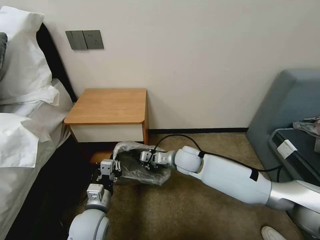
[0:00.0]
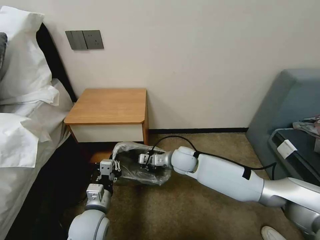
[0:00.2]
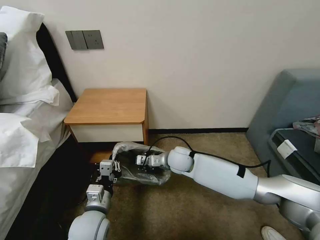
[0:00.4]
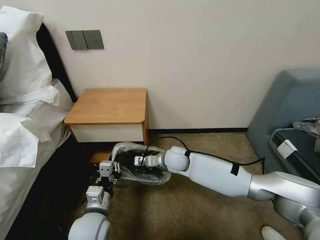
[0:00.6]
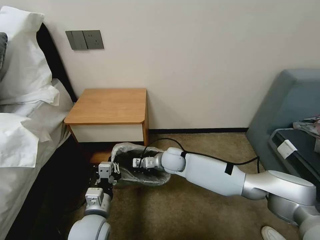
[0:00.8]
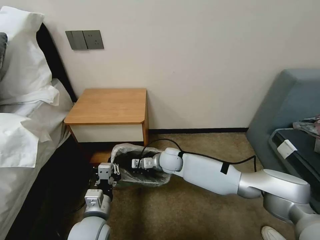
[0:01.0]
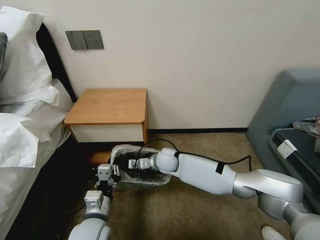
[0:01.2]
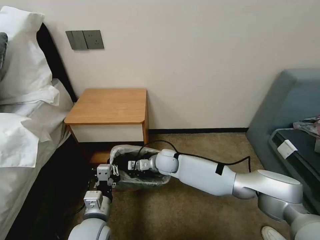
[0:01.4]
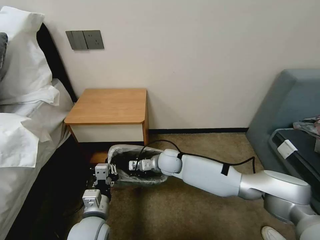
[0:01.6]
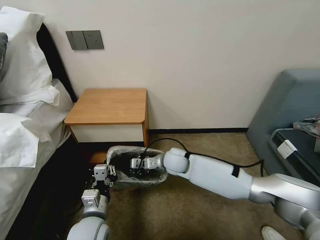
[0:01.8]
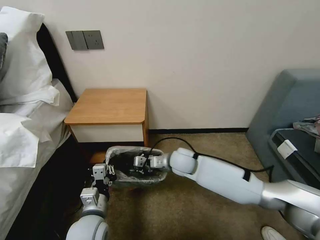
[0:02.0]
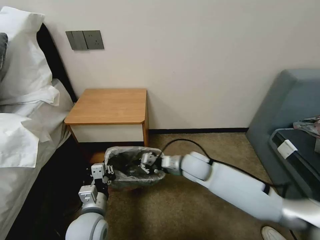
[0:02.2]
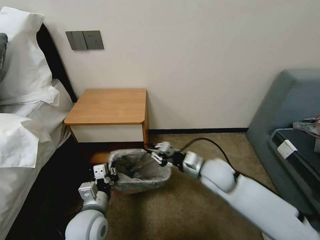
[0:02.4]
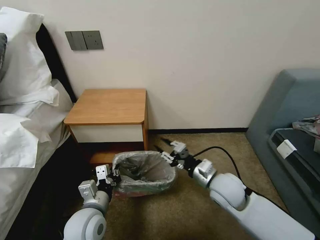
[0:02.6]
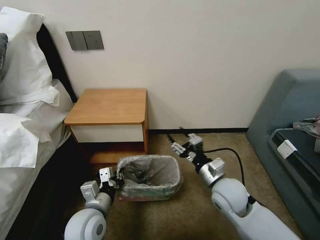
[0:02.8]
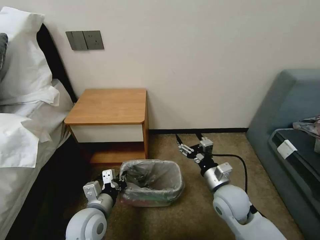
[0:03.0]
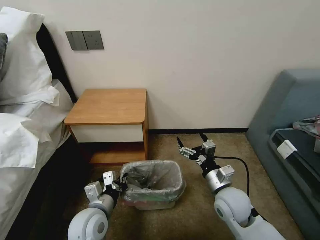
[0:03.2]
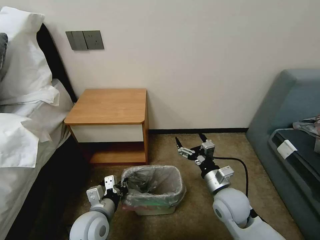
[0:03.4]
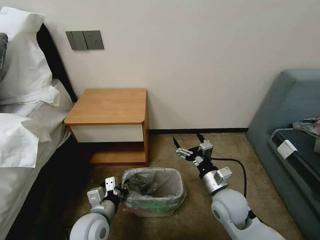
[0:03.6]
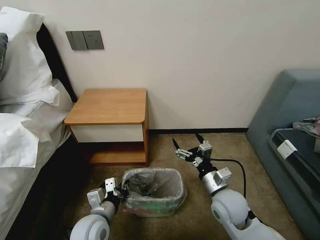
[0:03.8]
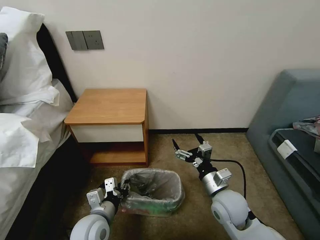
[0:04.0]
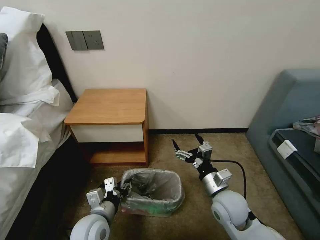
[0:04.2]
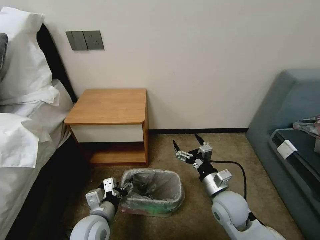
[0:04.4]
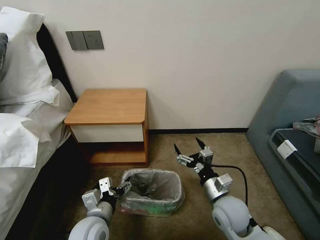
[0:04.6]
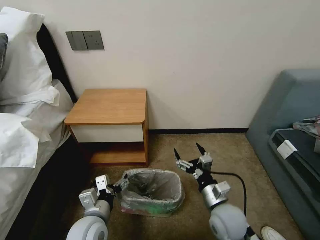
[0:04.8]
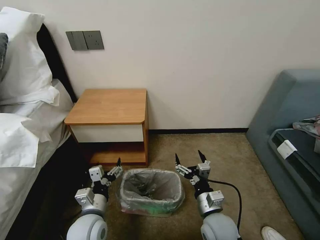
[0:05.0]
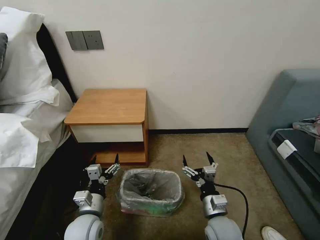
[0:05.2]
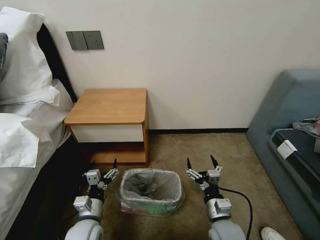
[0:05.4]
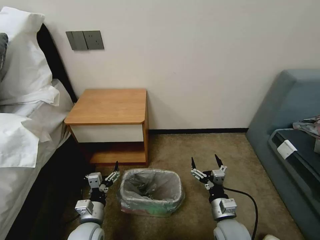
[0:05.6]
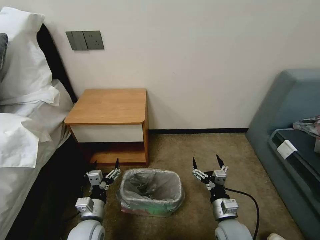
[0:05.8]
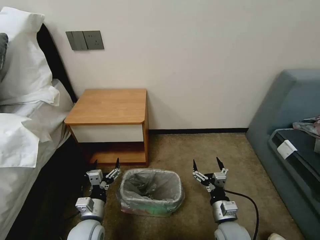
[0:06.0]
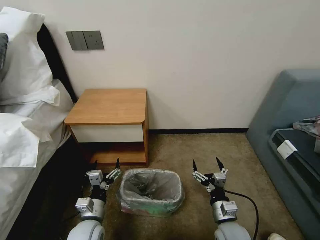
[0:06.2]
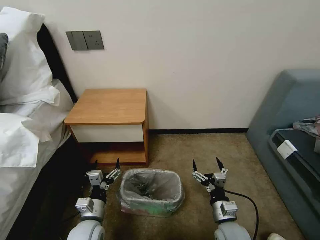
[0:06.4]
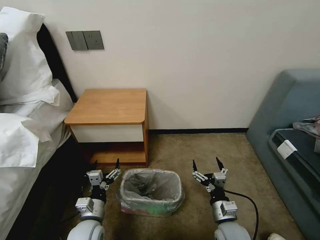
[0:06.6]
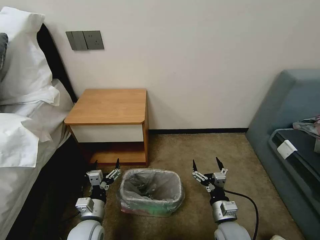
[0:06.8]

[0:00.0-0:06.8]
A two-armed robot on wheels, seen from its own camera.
Task of the whole recording: Pick up the garbage bag from the table and place it over the trash can.
0:00.0 to 0:01.4: The right gripper travels to the left and downward by about 10 cm.
0:01.4 to 0:02.8: The right gripper heads to the right and backward, covering approximately 25 cm, and opens.
0:02.8 to 0:04.0: The right gripper opens up.
0:04.0 to 0:05.4: The left gripper ends up approximately 5 cm from where it was, and opens; the right gripper is displaced downward and backward by some 10 cm.
0:05.4 to 0:06.8: There are only small adjustments of the grippers.

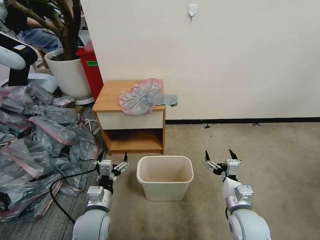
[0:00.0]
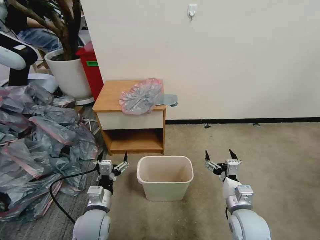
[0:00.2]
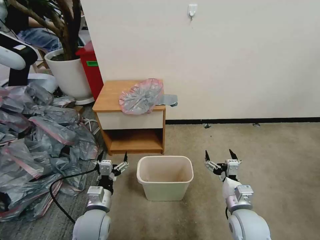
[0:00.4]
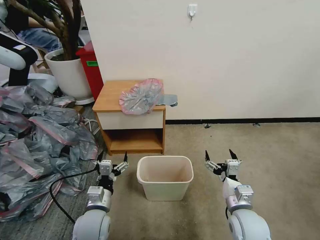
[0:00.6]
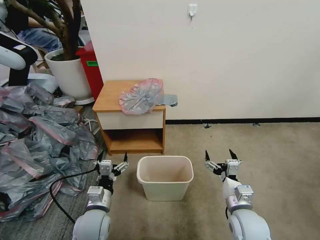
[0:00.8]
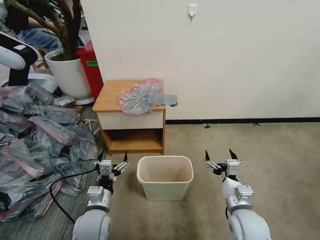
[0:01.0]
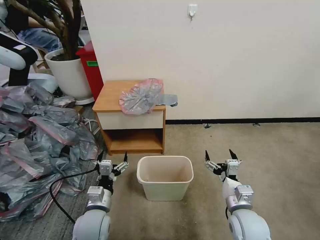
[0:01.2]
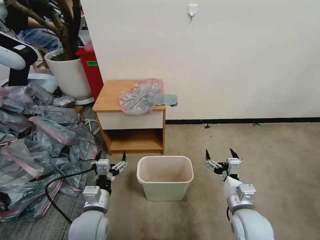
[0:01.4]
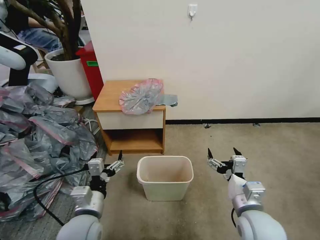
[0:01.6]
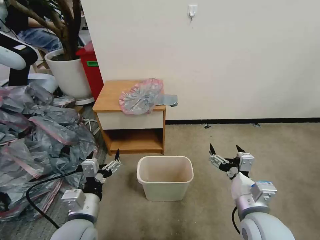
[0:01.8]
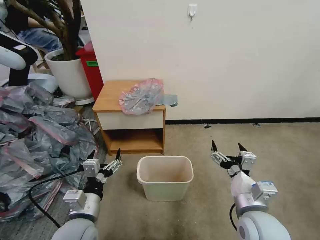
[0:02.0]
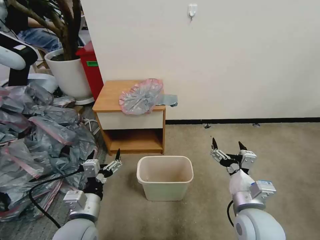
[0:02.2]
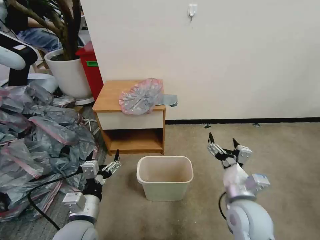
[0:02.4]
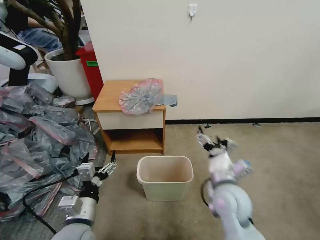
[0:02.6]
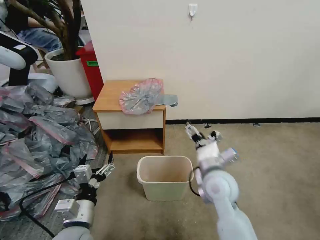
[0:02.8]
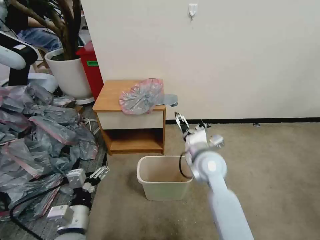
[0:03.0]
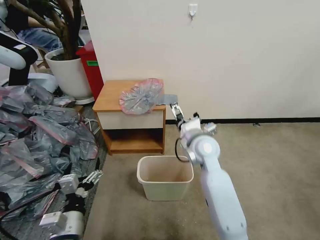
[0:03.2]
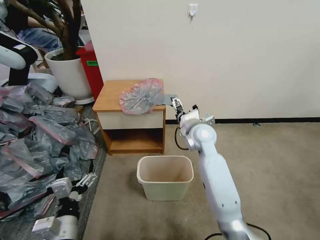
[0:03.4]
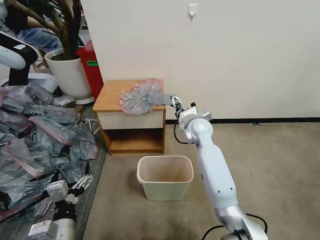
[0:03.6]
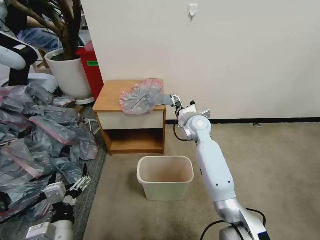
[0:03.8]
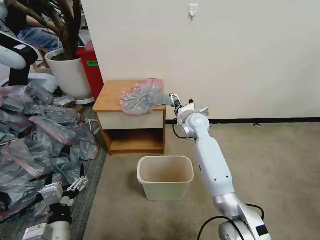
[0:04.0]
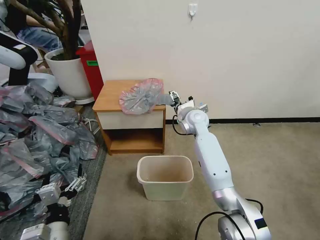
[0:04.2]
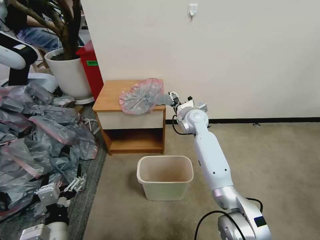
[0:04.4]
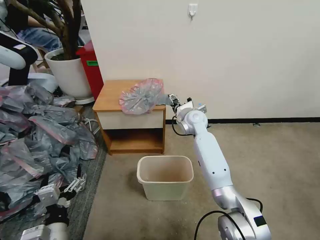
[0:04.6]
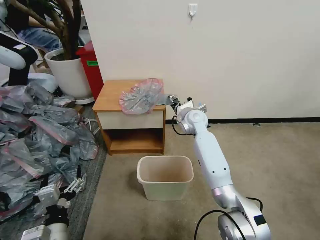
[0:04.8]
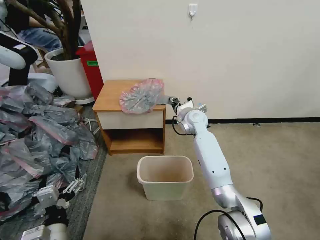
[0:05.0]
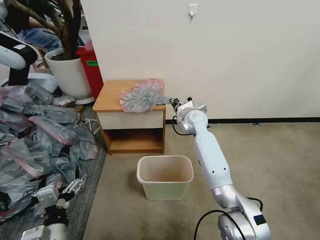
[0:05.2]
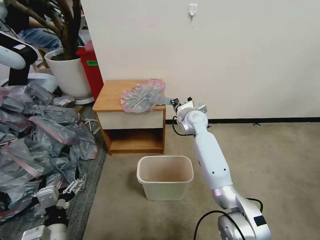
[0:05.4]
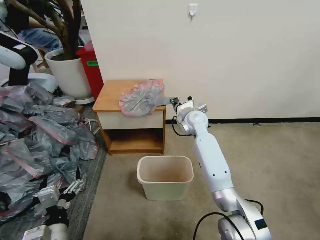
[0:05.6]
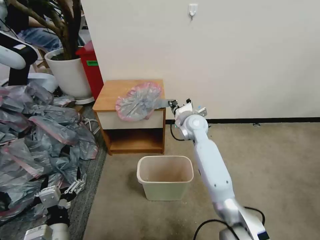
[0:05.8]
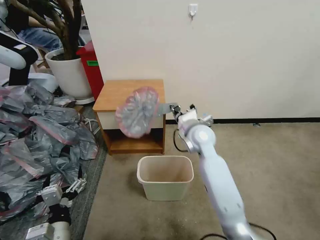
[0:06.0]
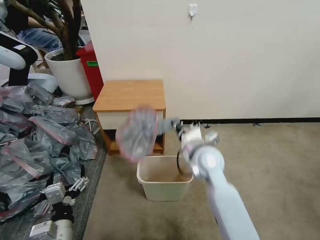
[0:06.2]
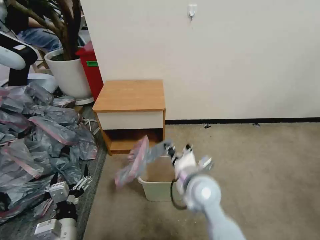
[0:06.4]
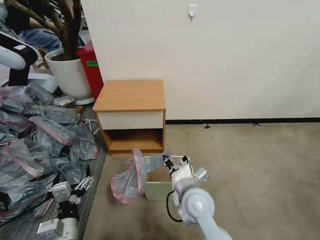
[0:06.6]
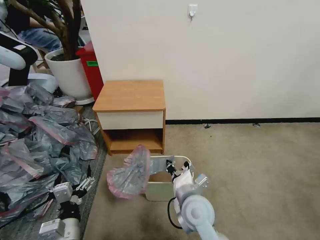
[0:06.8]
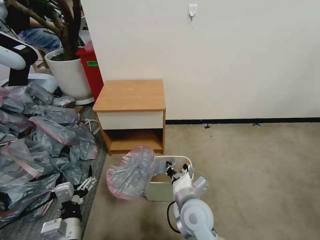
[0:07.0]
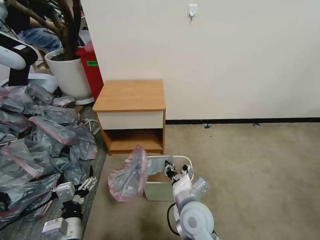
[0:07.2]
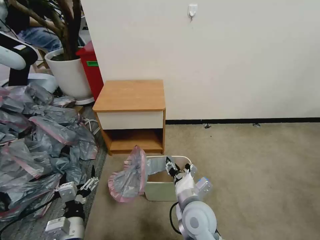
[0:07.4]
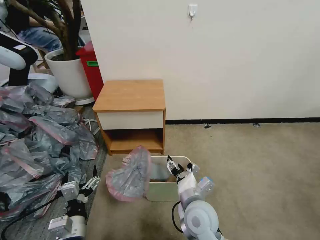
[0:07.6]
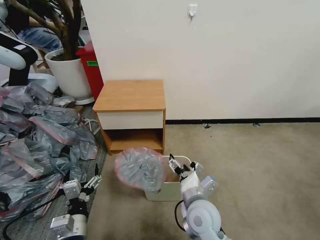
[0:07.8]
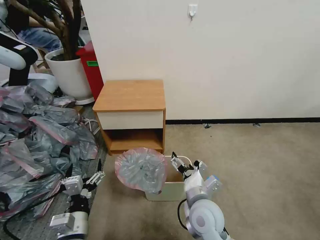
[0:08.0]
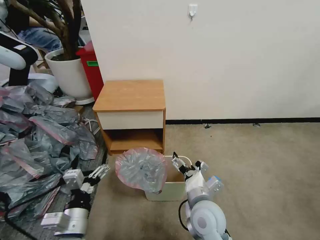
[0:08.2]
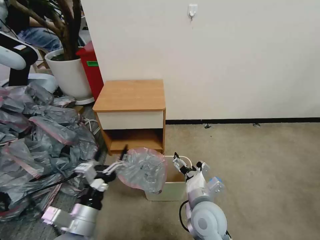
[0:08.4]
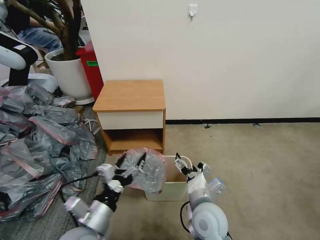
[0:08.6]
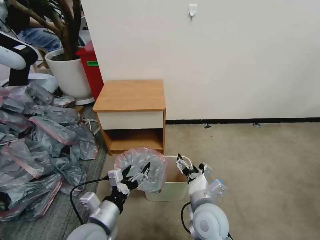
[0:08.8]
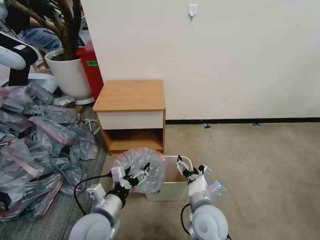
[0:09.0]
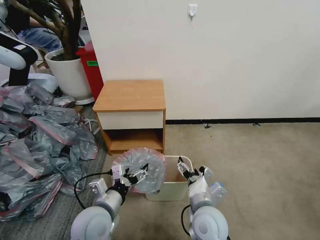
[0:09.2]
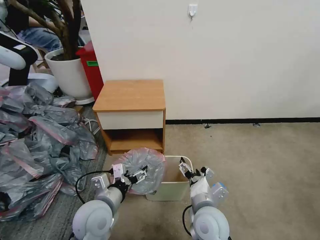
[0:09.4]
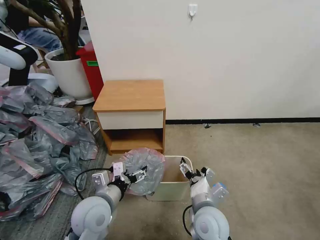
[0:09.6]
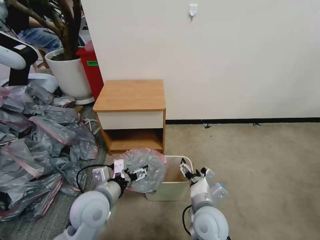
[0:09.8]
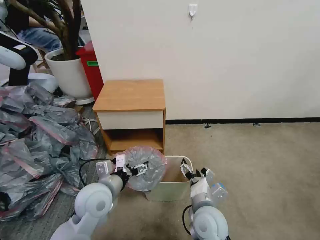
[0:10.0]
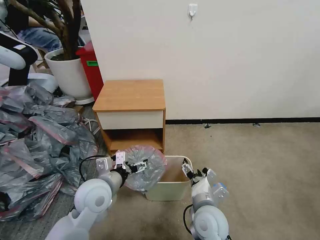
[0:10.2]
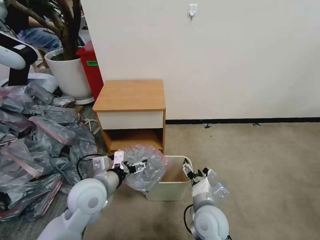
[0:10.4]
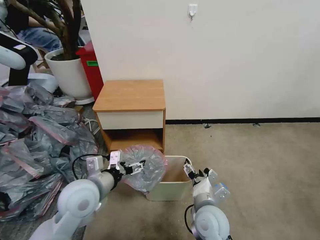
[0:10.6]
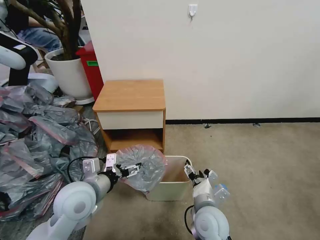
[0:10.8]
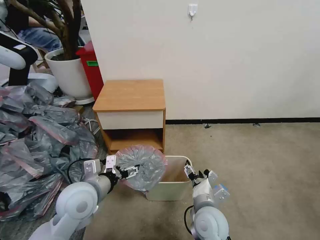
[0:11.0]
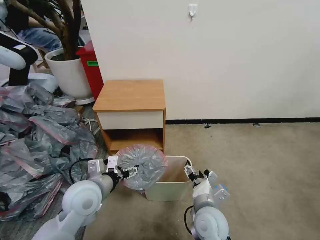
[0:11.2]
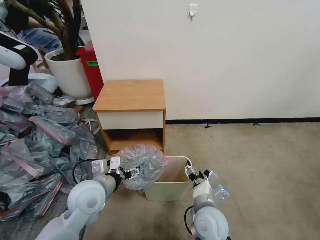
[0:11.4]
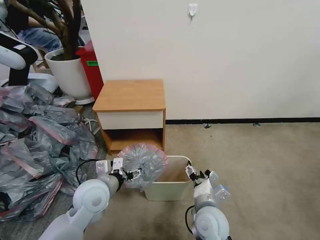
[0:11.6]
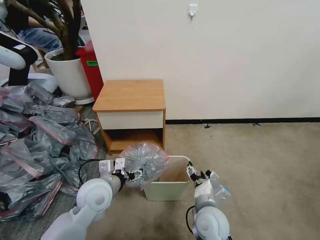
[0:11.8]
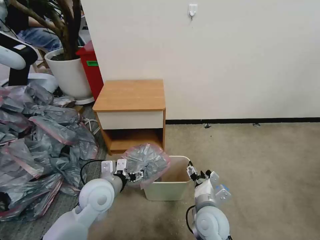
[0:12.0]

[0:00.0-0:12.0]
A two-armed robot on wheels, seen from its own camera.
Task of the whole recording: Pick up the garbage bag from the table and place it over the trash can.
0:01.6 to 0:03.0: The right gripper heads forward and to the left, covering some 20 cm.
0:03.0 to 0:04.4: The right gripper travels forward by roughly 20 cm.
0:04.4 to 0:06.0: The right gripper goes some 10 cm backward, and closes.
0:06.0 to 0:07.6: The right gripper shifts approximately 20 cm backward and downward, and opens up.
0:07.6 to 0:09.0: The left gripper heads to the right and forward, covering about 10 cm.
0:09.0 to 0:10.4: The left gripper is displaced forward by about 10 cm.
0:10.4 to 0:12.0: The grippers stay close to where they were, moving slightly.

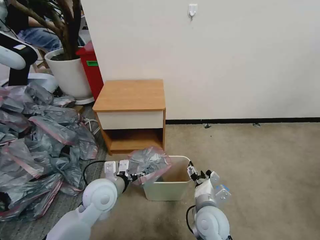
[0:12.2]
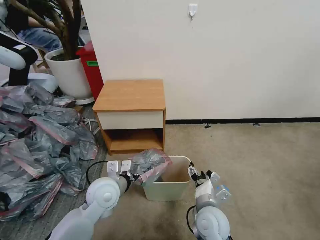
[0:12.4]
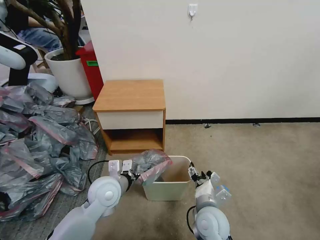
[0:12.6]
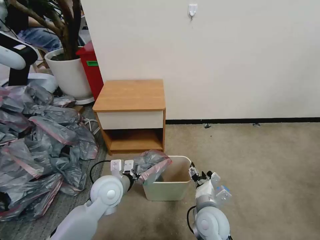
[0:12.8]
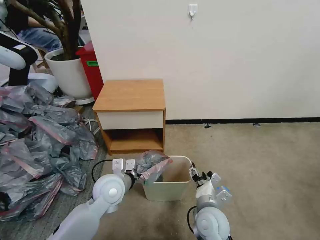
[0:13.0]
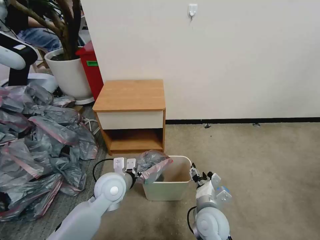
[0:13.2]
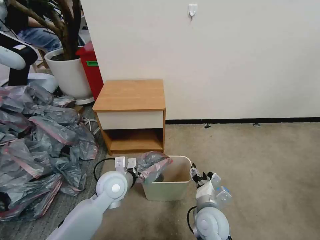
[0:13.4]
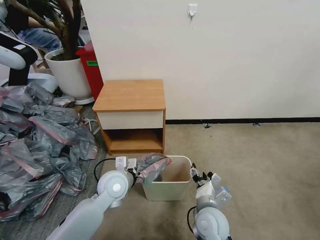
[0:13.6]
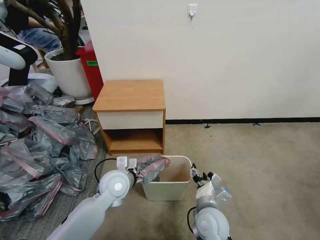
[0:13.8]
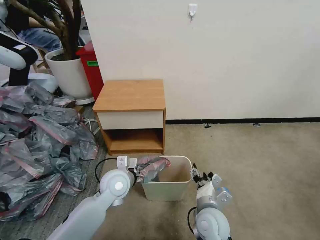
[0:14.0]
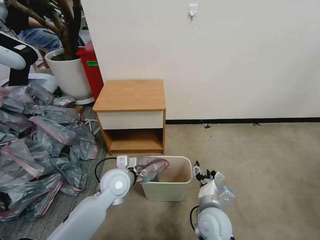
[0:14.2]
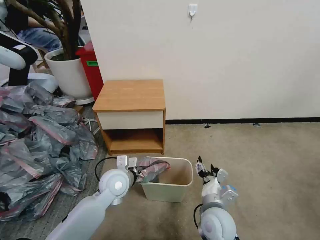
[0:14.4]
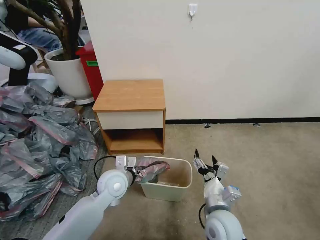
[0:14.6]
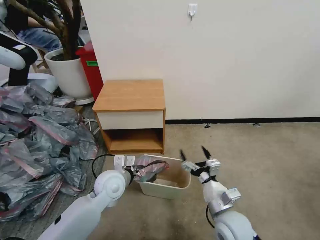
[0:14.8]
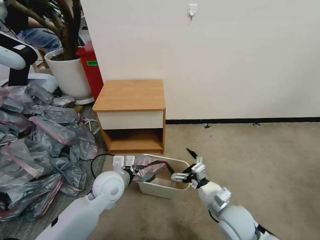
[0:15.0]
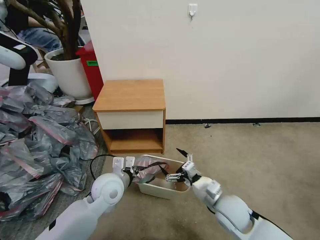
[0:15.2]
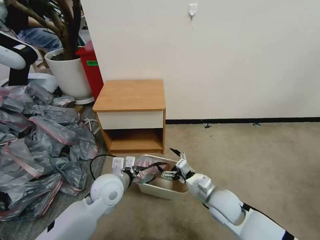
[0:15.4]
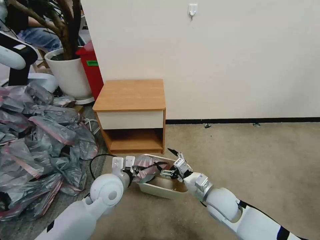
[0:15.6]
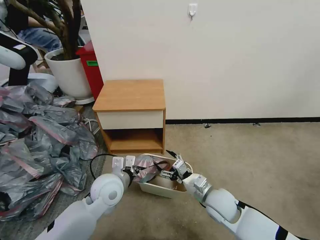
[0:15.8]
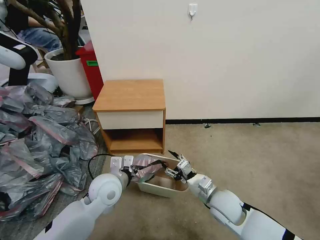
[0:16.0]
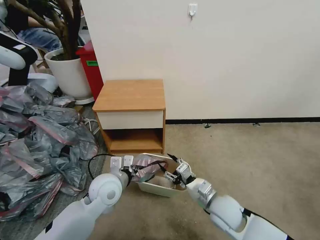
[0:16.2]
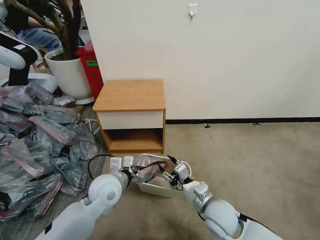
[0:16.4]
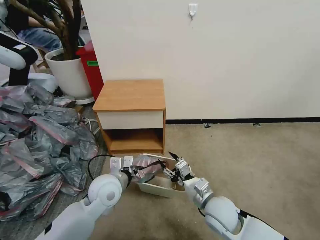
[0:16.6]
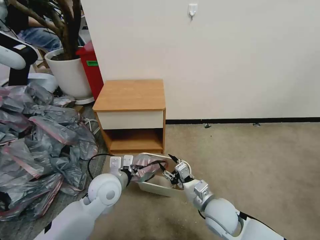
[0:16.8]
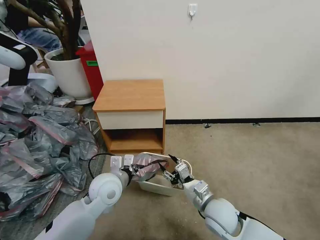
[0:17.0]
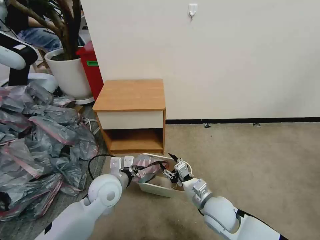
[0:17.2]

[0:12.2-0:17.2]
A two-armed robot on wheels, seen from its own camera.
Task of the whole recording: Pick up the garbage bag from the table and place it over the trash can.
0:12.2 to 0:13.8: The left gripper ends up roughly 5 cm from where it was.
0:13.8 to 0:15.6: The right gripper goes approximately 5 cm forward. The left gripper closes its fingers.
0:15.6 to 0:17.2: The grippers make only small movements.
